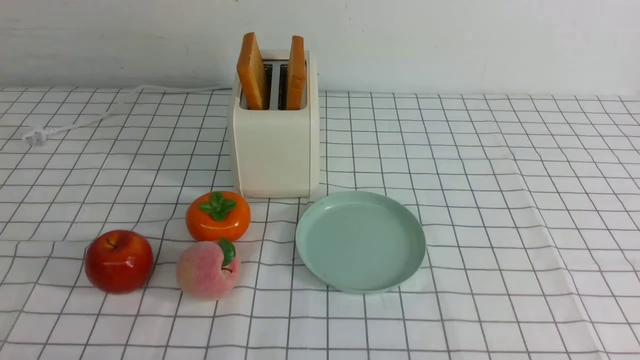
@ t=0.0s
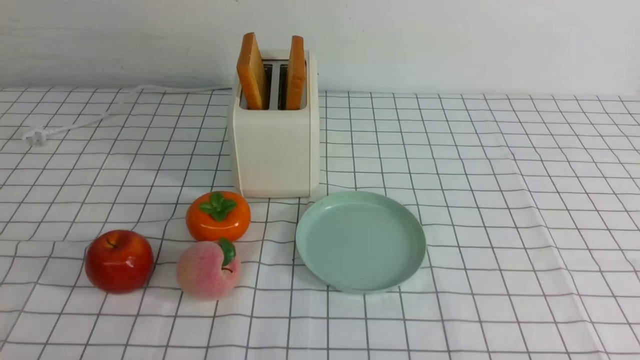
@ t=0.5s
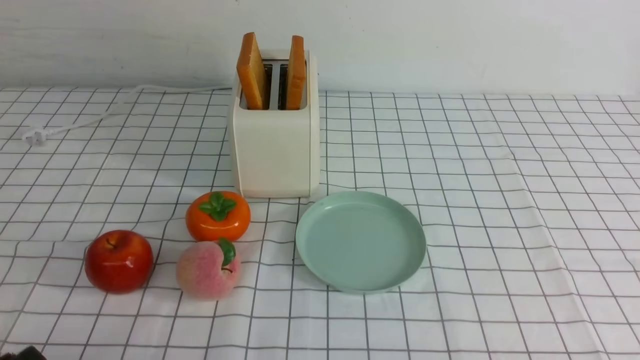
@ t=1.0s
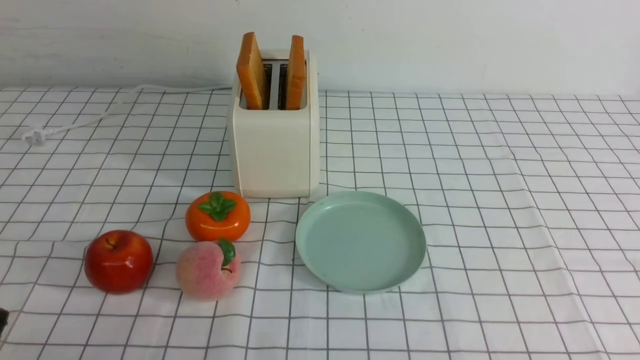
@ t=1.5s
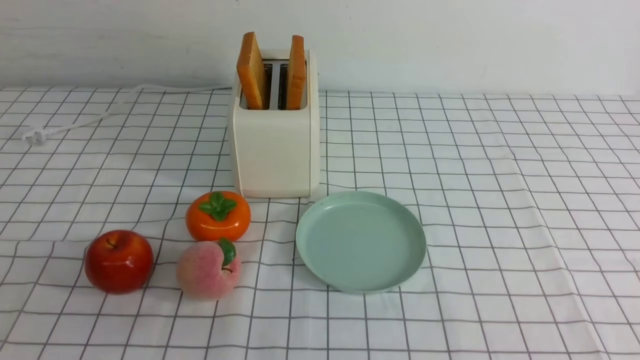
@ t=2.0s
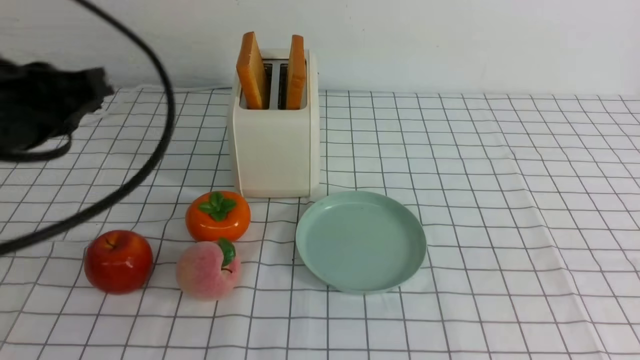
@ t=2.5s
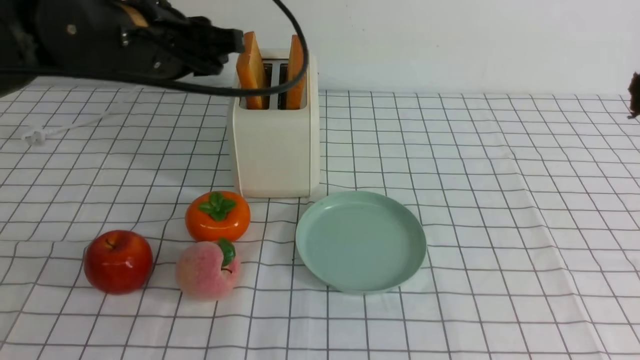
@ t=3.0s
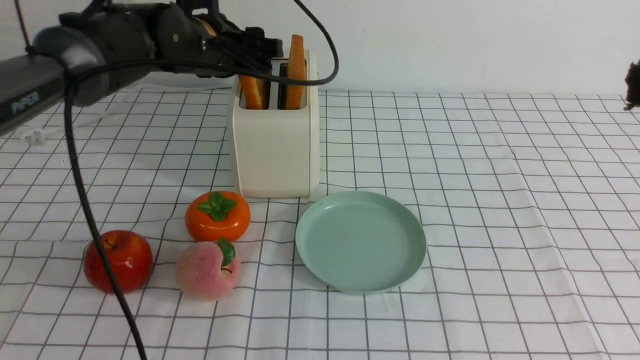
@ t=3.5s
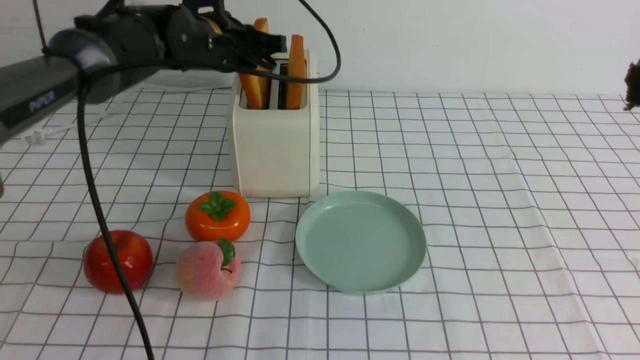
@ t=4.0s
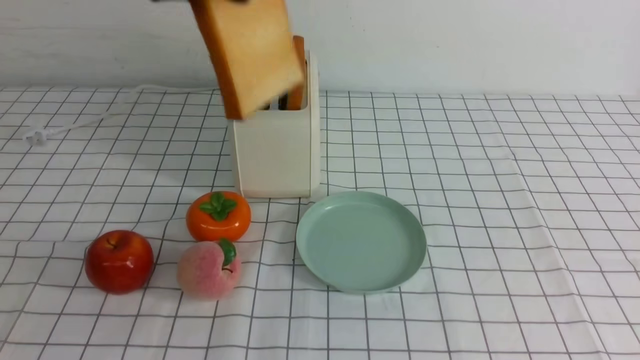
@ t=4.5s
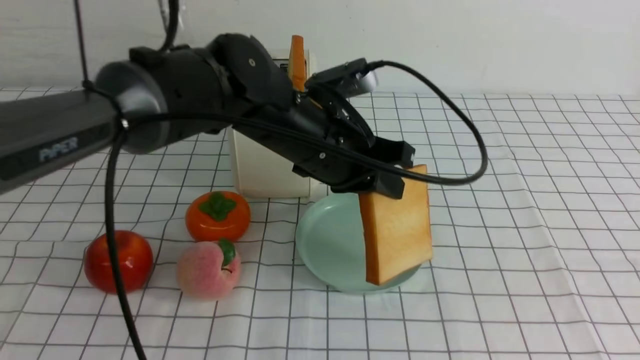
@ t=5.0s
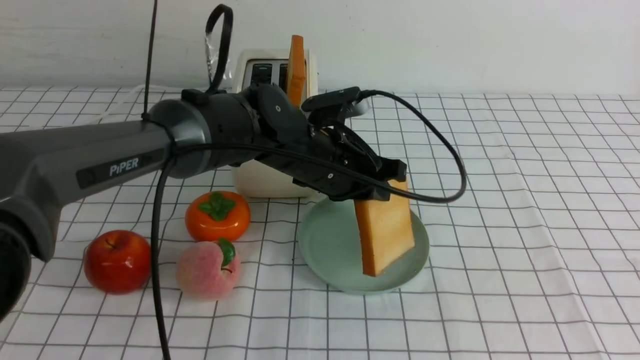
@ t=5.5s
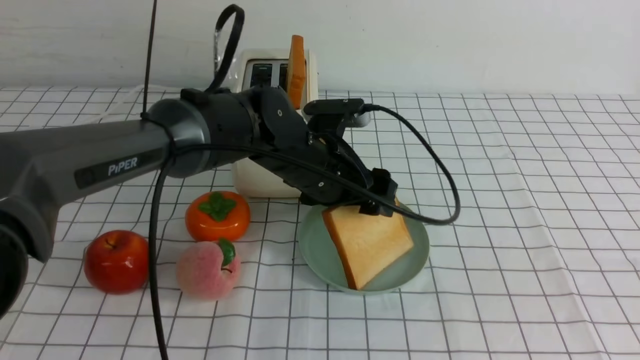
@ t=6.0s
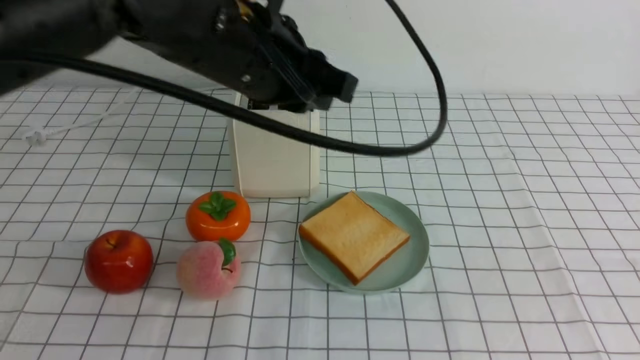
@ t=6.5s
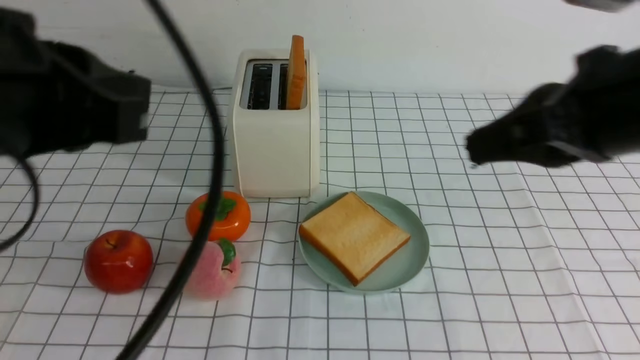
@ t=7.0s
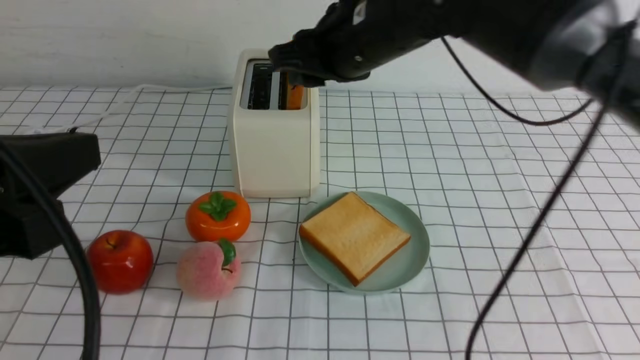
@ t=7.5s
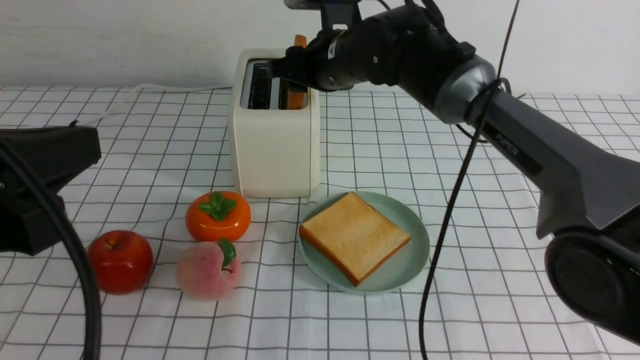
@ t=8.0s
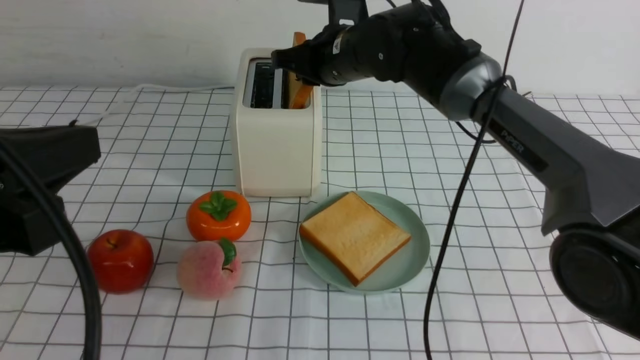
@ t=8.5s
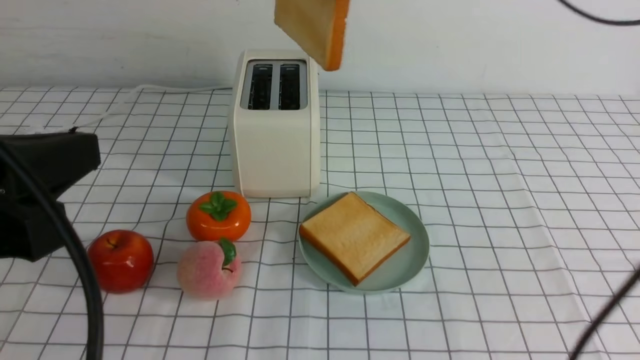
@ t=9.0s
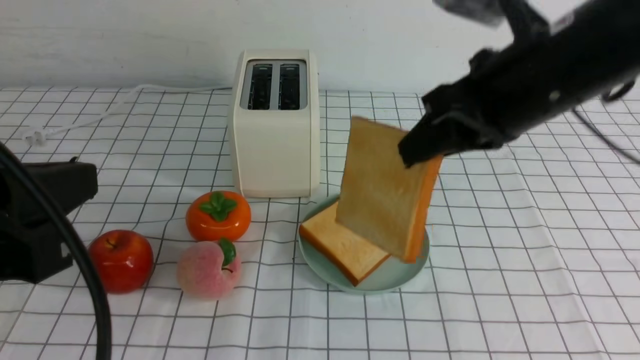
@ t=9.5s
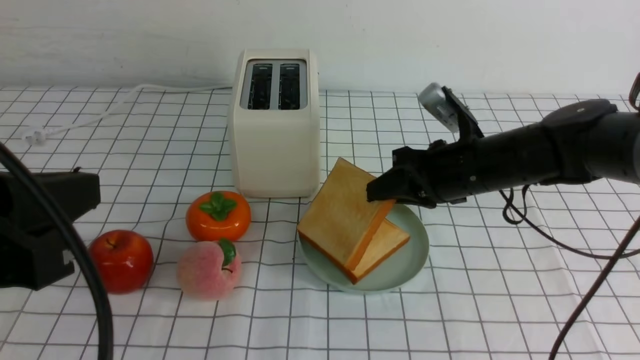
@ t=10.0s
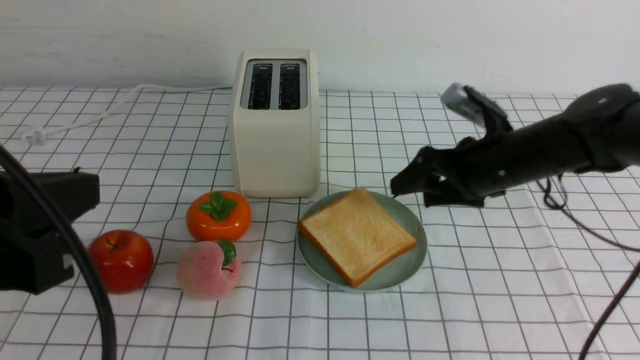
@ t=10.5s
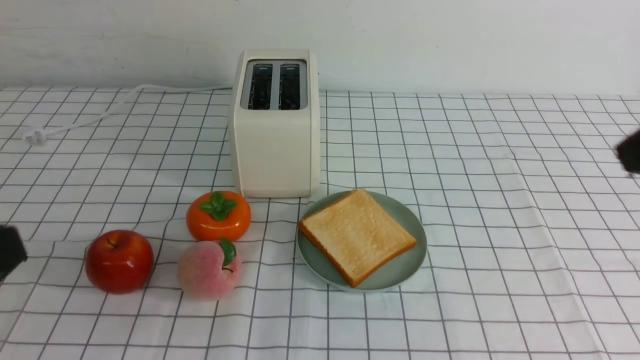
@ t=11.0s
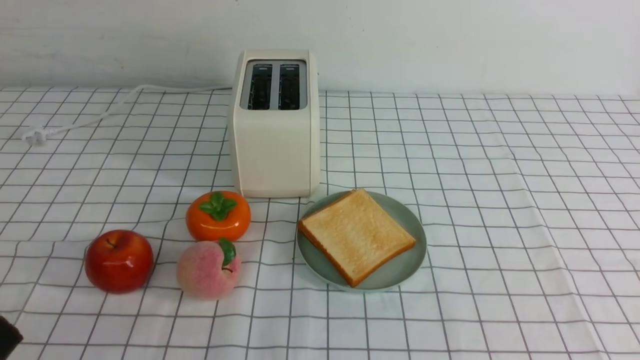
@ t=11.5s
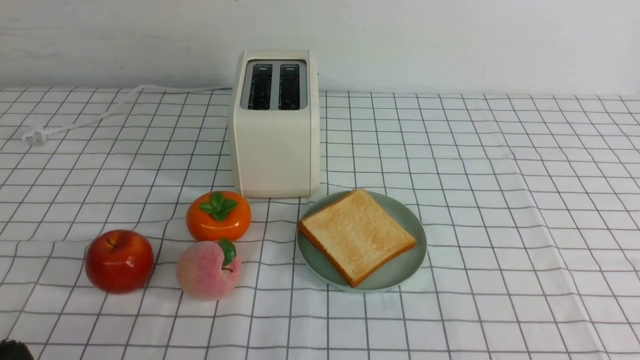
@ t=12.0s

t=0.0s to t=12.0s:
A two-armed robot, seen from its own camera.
Task of the whole recording: take toasted bread from bread machine on white checkered table place on plate.
Step, t=0.0s to t=4.0s: use the left arm to take out a slice of bread.
Step, t=4.5s to t=6.0s: use the left arm to put a slice of bread into the empty plate.
Step, t=6.5s to t=8.5s: use the right arm to take out a slice of bread.
Step, t=9.0s to t=10.5s: use the right arm to put a slice of bread into the plate.
t=2.0s to t=4.0s: The right gripper travels upward by approximately 20 cm, while the left gripper moves forward, approximately 40 cm, and opens, then closes once more.
t=4.0s to t=6.0s: The right gripper moves backward, some 10 cm. The left gripper shifts some 20 cm to the right, downward and backward, and opens up.
t=6.0s to t=8.0s: The right gripper heads forward and to the left, covering about 50 cm, and opens its fingers. The left gripper shifts about 35 cm backward, to the left and upward, and closes its fingers.
t=8.0s to t=10.0s: The right gripper heads to the right and backward, covering approximately 15 cm, goes upward and returns, roughly 15 cm each way, and closes its fingers.
t=10.0s to t=12.0s: The left gripper shifts roughly 15 cm downward and backward; the right gripper travels backward by approximately 35 cm, and opens and closes again.

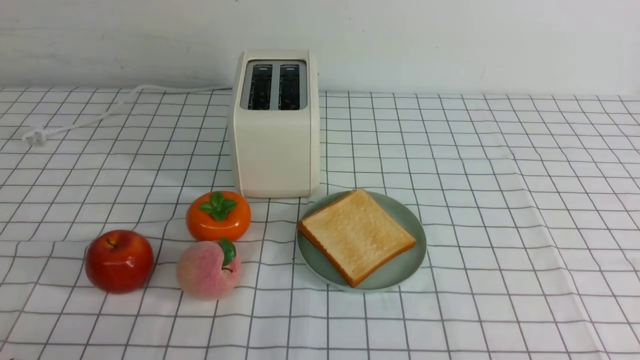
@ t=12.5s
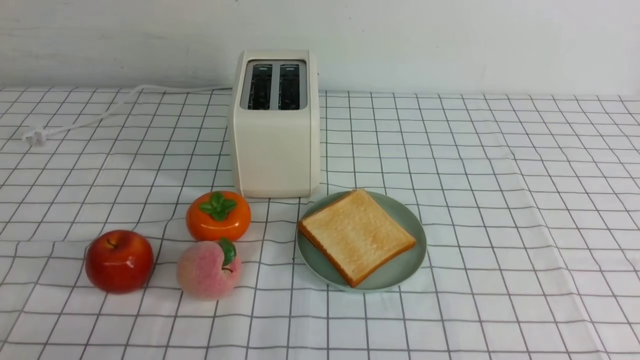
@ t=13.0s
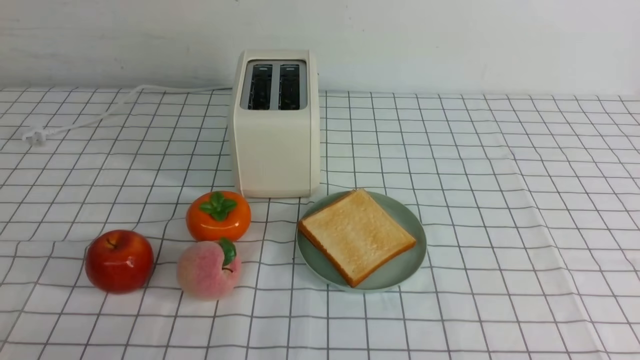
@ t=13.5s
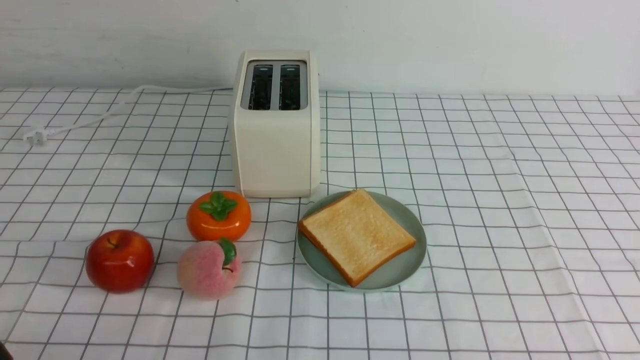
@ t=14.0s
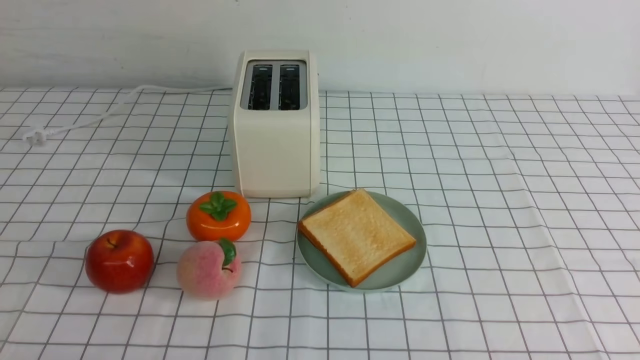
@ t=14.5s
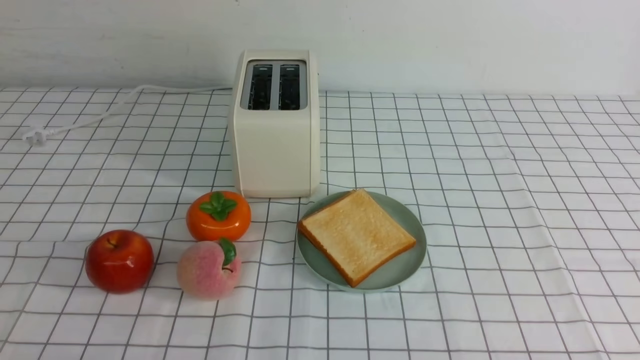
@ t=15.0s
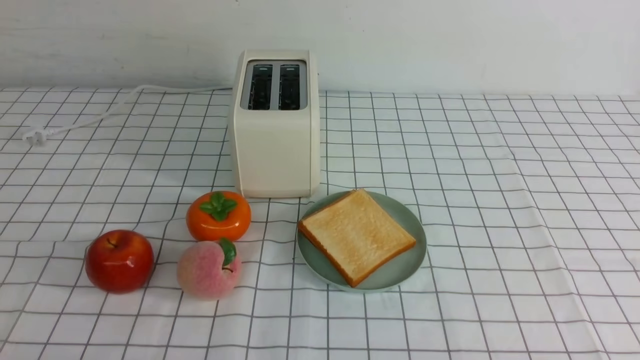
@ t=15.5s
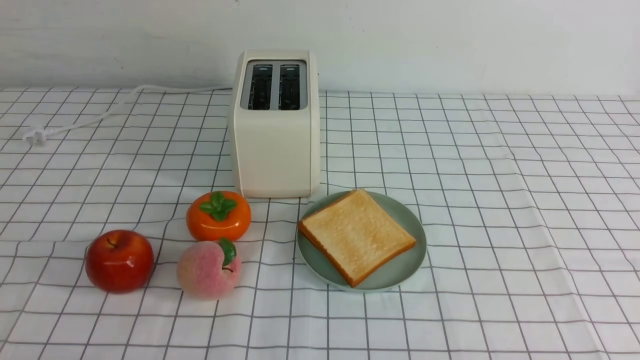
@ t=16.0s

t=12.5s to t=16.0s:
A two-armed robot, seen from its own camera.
Task of the whole recording: take toasted bread from bread machine on white checkered table place on plate.
t=14.5s to t=16.0s: Both grippers stay put.
